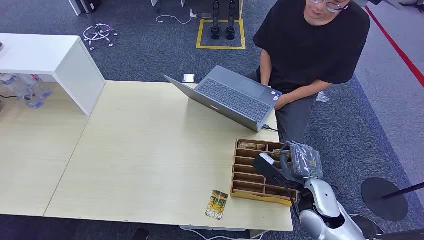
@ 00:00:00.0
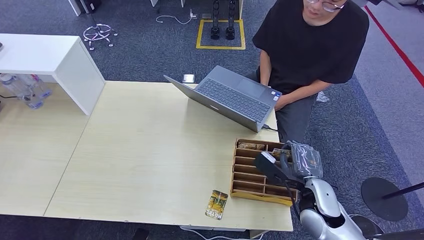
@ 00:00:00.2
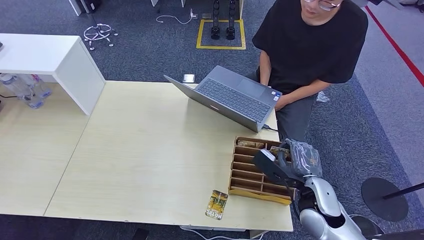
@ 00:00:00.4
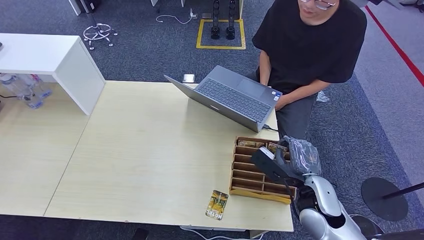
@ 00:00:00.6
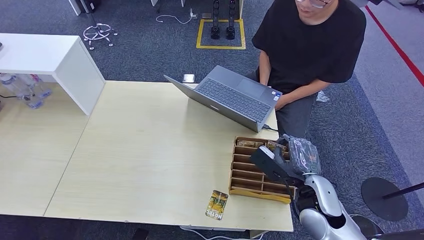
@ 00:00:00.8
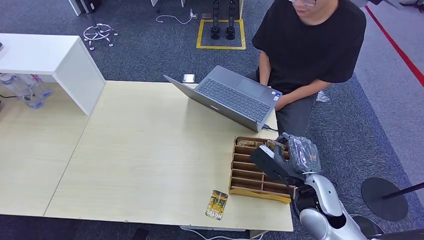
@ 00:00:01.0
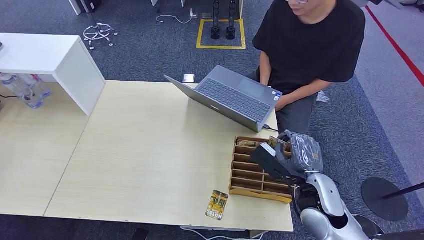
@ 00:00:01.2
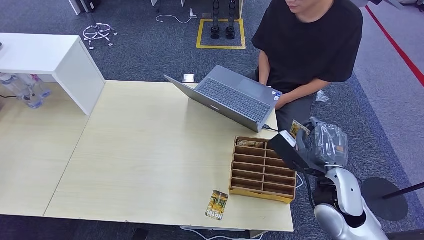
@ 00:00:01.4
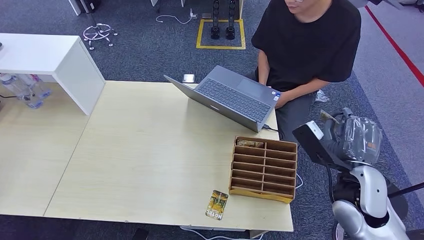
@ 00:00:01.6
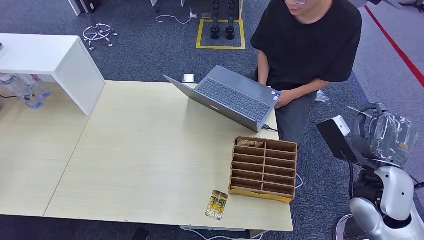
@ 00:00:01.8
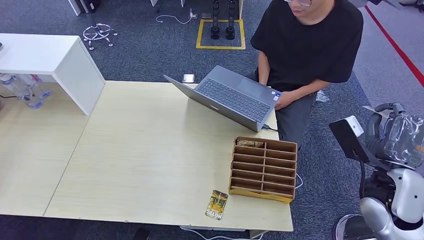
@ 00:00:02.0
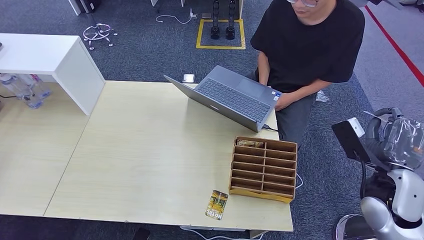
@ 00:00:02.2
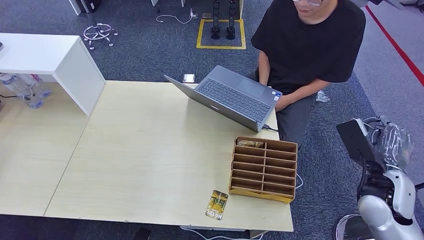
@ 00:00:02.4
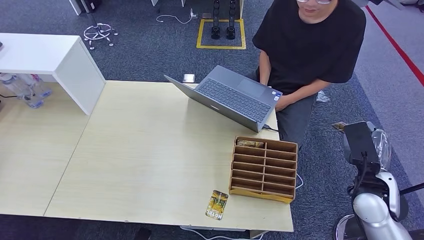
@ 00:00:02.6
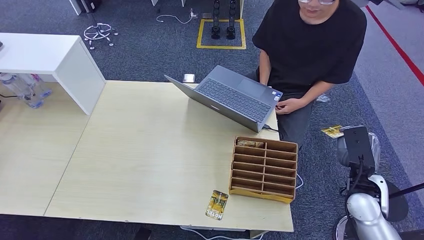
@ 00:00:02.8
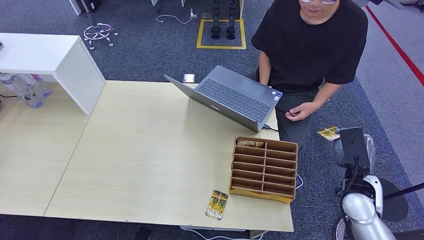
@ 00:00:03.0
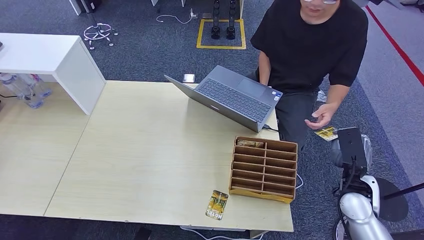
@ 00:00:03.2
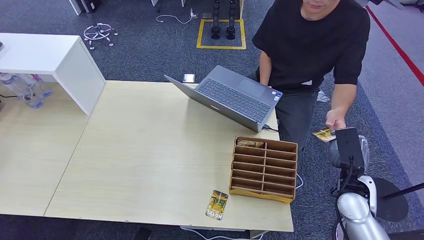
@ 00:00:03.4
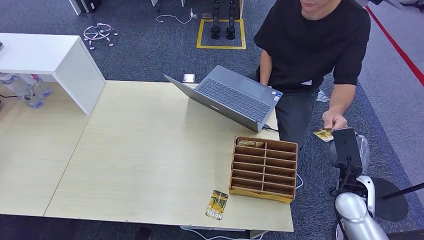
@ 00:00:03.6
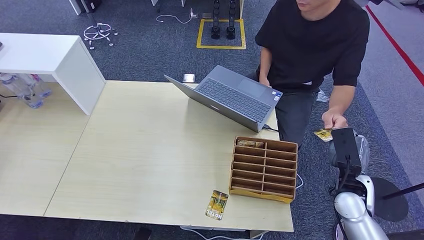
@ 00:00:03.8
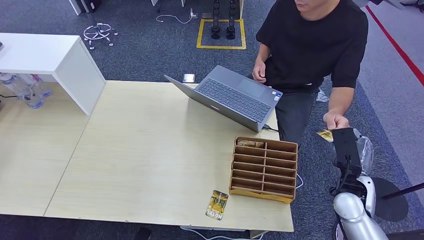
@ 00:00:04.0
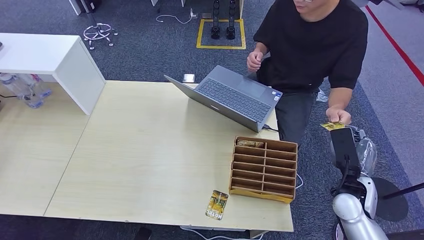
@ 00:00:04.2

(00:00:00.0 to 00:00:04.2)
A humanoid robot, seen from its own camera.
Step, 00:00:00.0 - 00:00:01.2: Pick up the room card from the card holder.
Step, 00:00:01.6 - 00:00:04.2: Hand the room card to the target.
00:00:01.4 - 00:00:02.8: The right hand is displaced to the right by approximately 10 cm.
00:00:02.8 - 00:00:04.2: The hands stay close to where they were, moving slightly.
